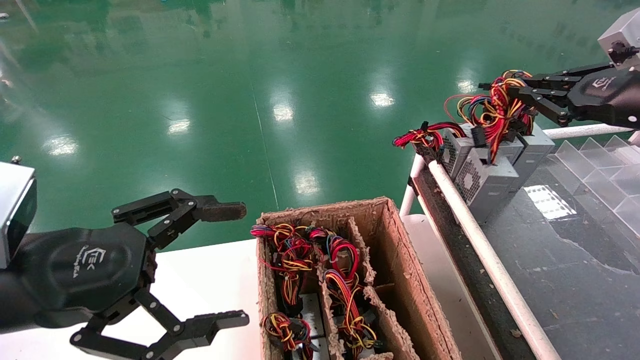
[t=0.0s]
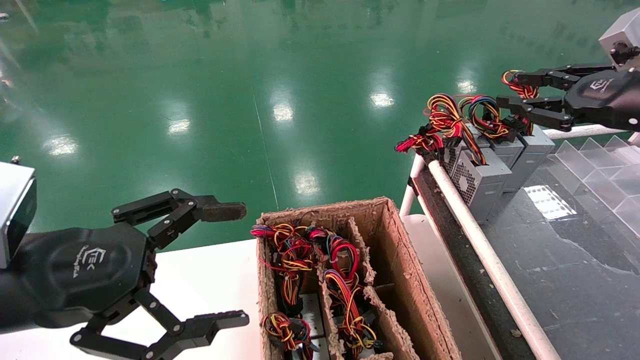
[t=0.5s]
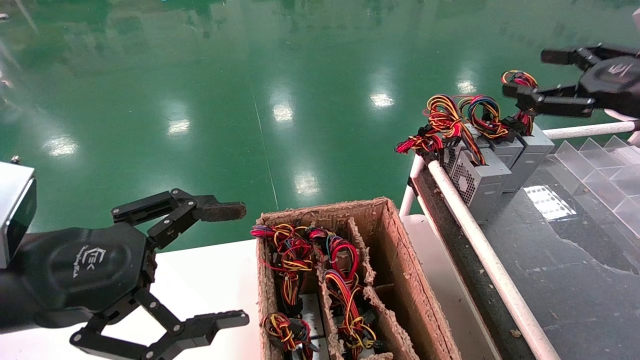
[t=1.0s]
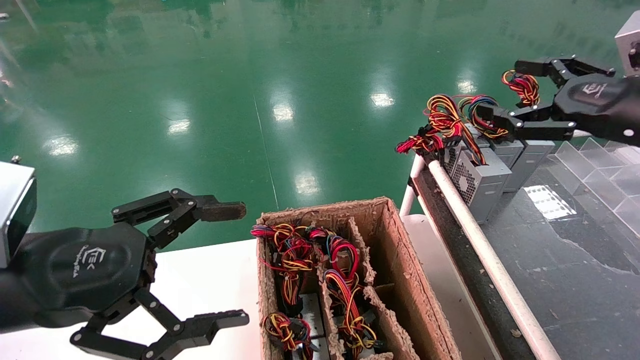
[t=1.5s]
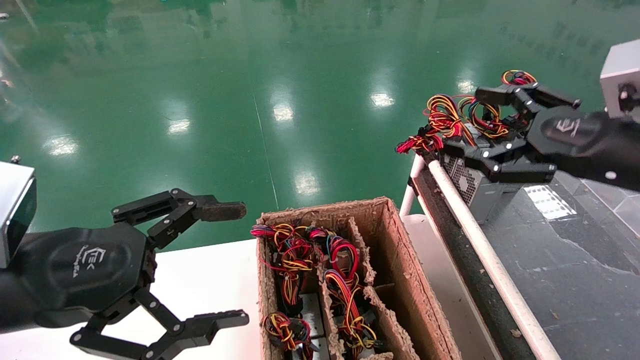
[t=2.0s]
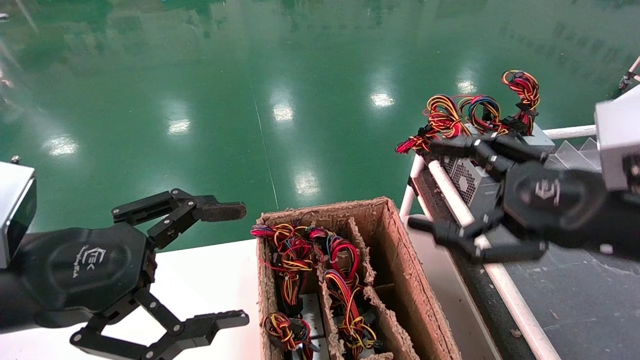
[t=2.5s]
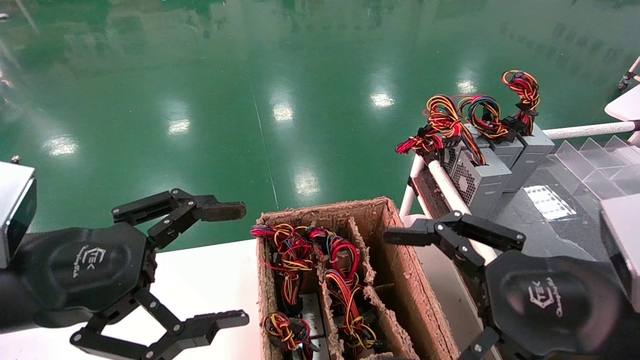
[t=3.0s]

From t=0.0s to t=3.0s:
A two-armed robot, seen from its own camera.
From t=0.0s to t=1.5s: The right gripper opens up.
From t=1.5s to t=3.0s: The right gripper is displaced backward, to the left and downward by approximately 20 cm.
